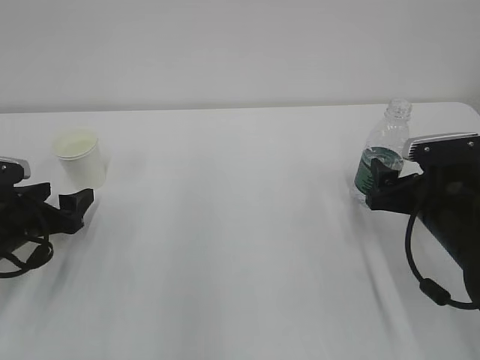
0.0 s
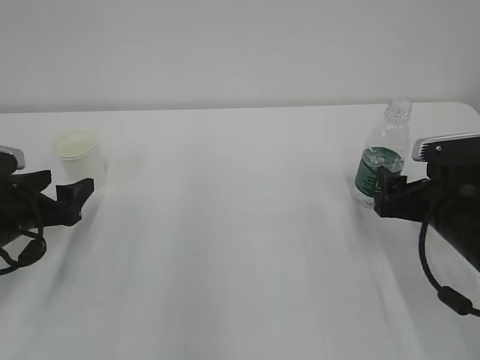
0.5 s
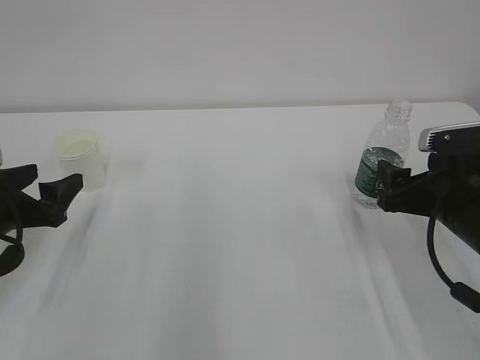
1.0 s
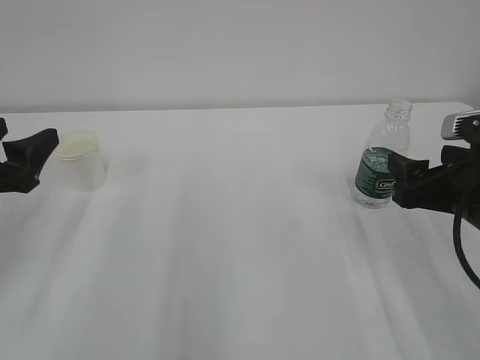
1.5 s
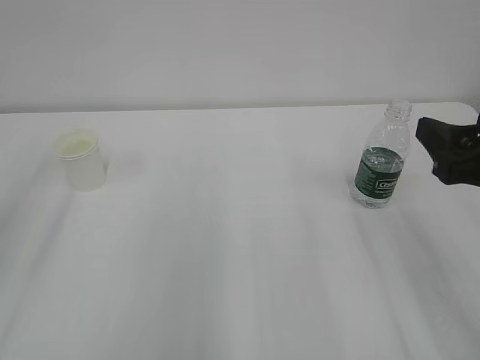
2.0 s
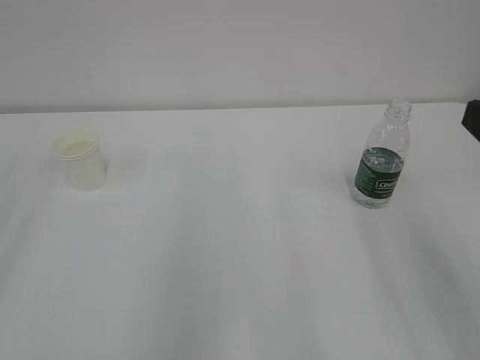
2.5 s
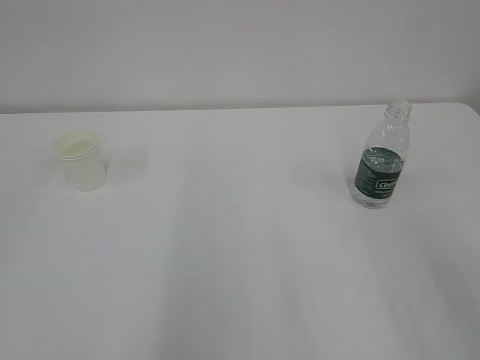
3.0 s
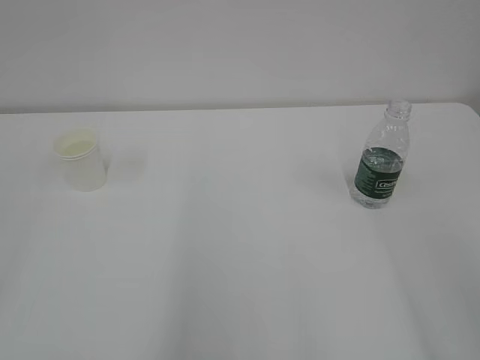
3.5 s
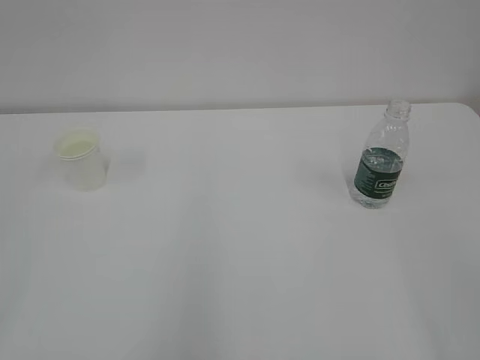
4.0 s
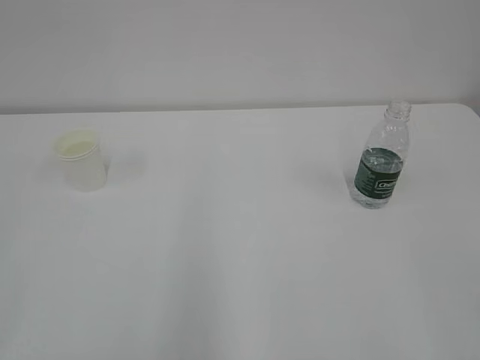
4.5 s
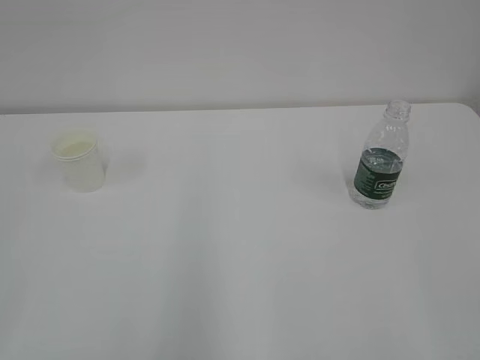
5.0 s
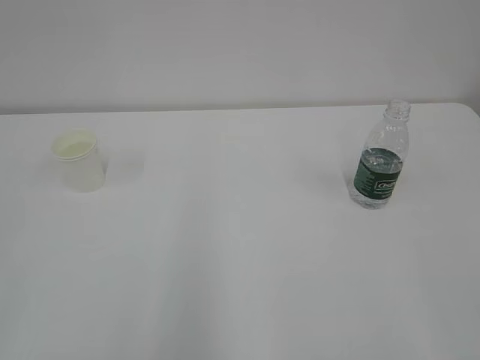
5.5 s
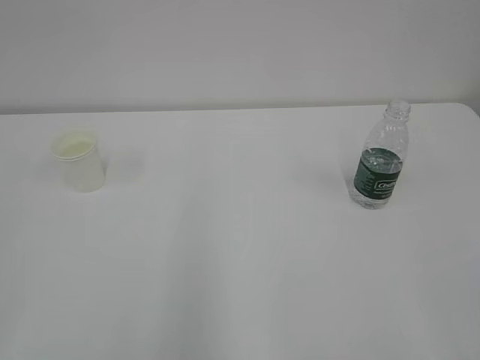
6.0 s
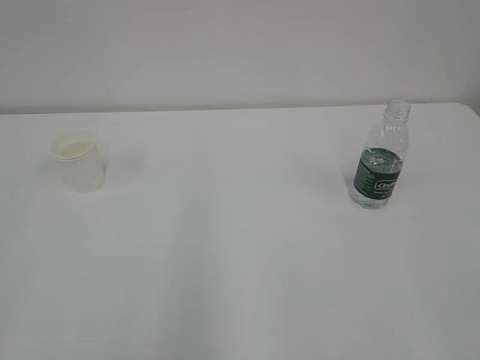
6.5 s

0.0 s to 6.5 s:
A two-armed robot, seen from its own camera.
0.0 to 2.0 s: Both grippers travel together upward and backward, some 20 cm.
2.0 to 4.5 s: The right gripper shifts roughly 20 cm backward.

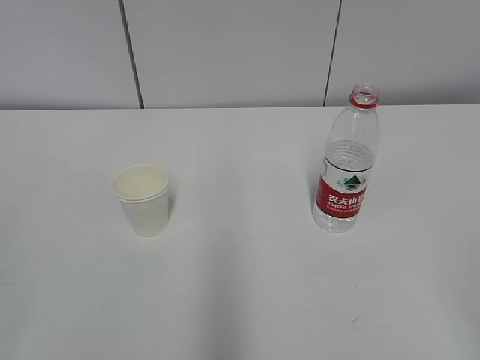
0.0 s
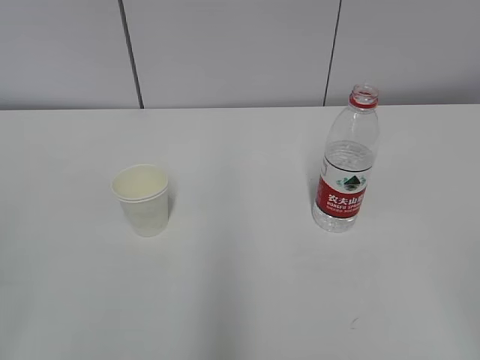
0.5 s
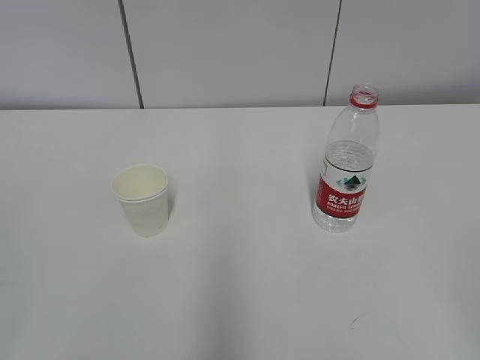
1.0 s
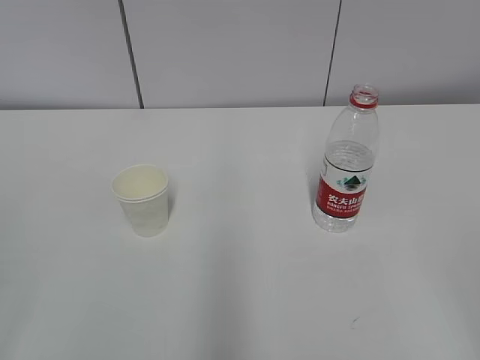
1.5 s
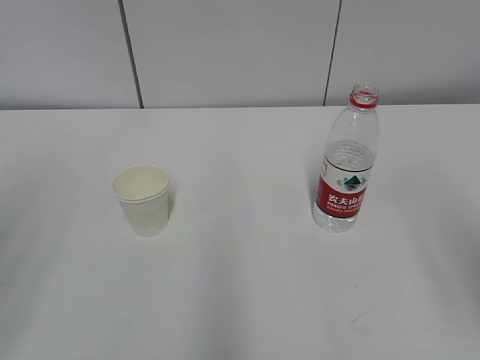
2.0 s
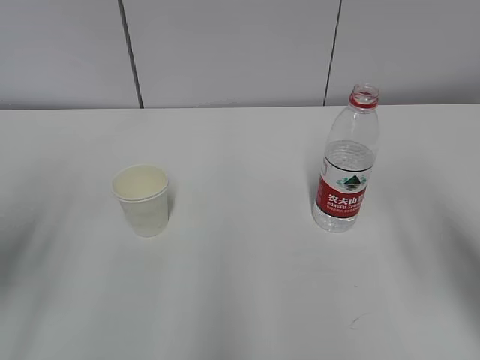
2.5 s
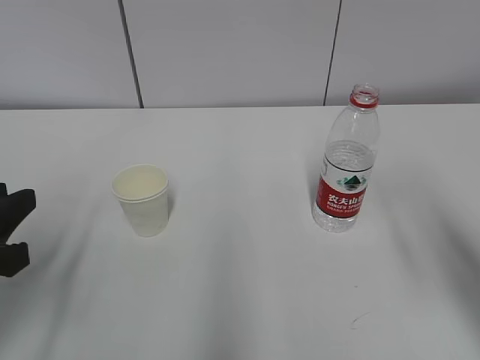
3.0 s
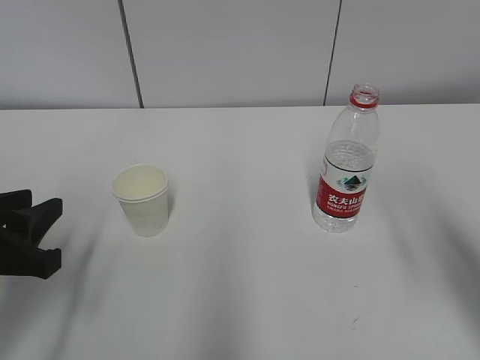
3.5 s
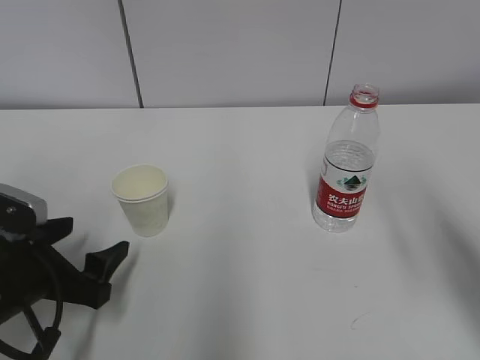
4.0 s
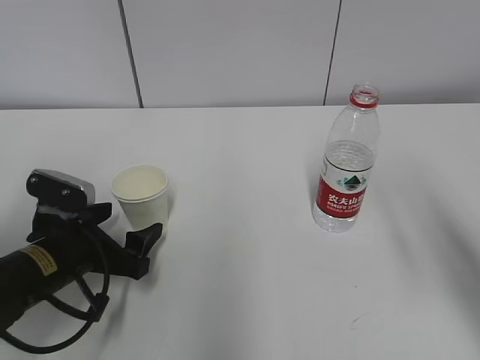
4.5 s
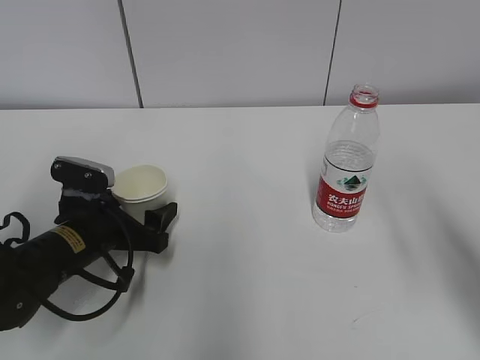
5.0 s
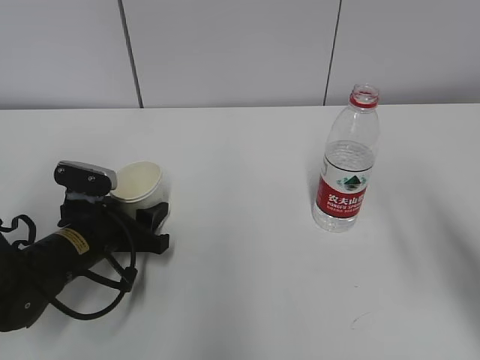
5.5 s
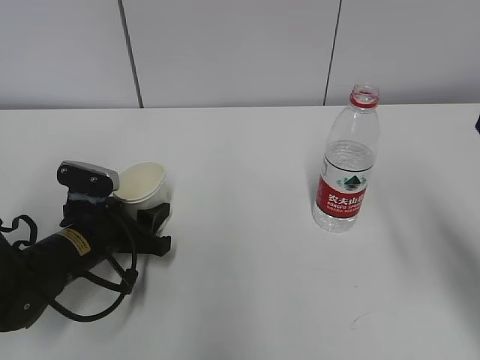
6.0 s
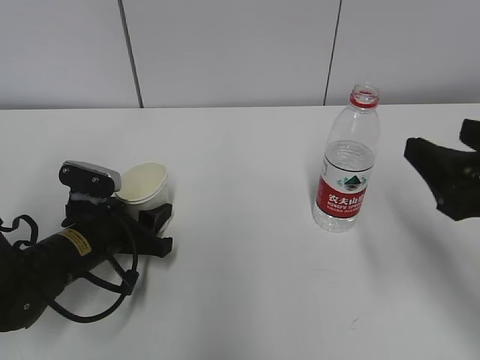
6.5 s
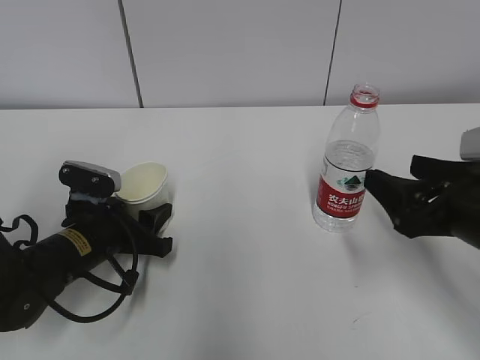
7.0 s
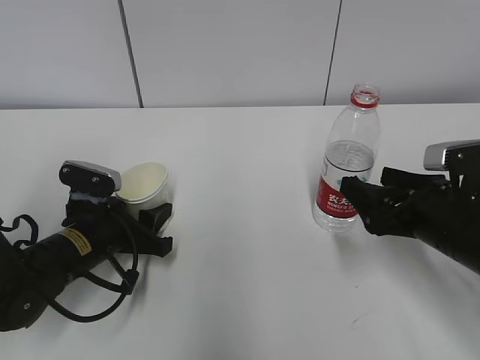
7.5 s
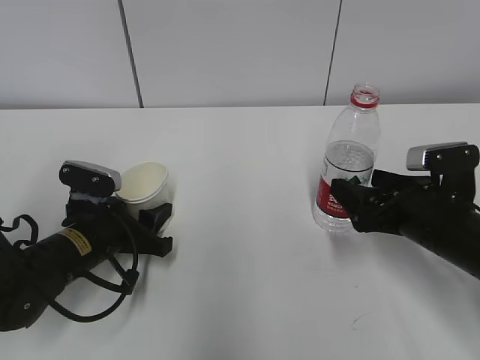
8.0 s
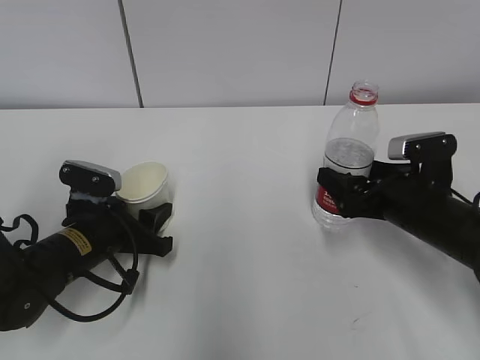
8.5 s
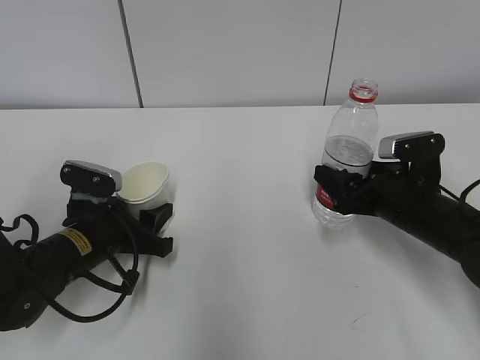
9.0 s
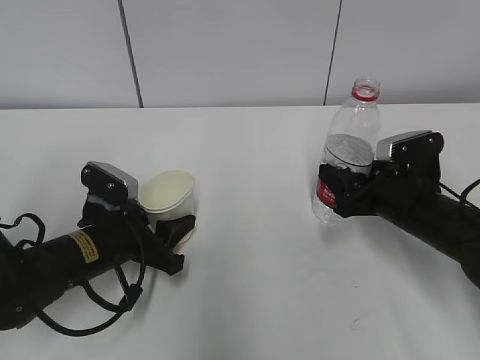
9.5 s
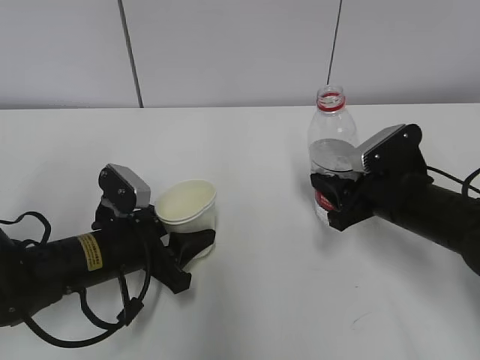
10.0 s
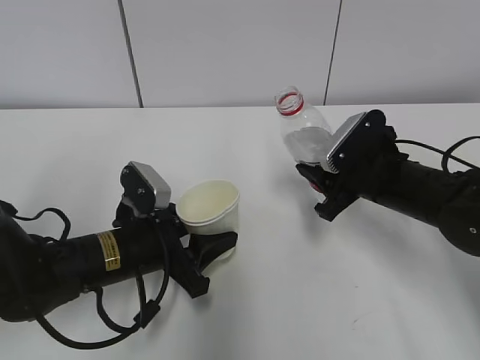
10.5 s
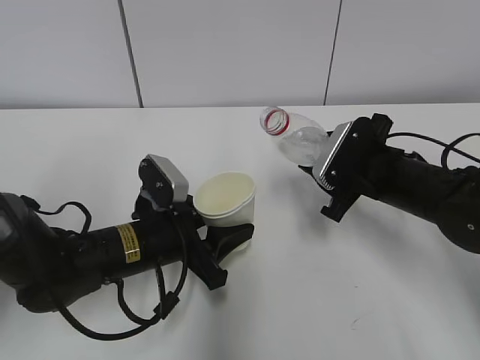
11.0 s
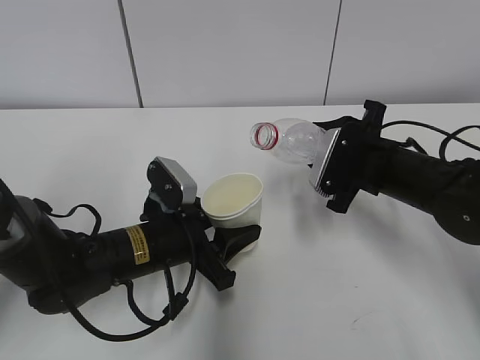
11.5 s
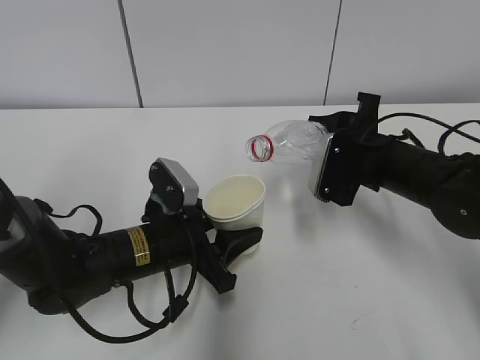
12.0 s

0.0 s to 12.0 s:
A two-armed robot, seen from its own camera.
Step, 0.0 to 7.5 s: Grab the paper cup with the left hand.
Step, 8.5 to 10.5 s: Lift the paper cup with the left hand.
2.0 to 4.0 s: The left gripper goes approximately 25 cm downward and forward, and opens up. The right gripper travels forward by some 10 cm.
4.0 to 6.0 s: The left gripper shifts roughly 10 cm forward, and closes.
6.0 to 8.0 s: The right gripper travels downward and forward by approximately 20 cm.
8.0 to 10.0 s: The right gripper closes its fingers.
10.0 to 12.0 s: The left gripper goes approximately 5 cm to the right. The right gripper moves approximately 5 cm.

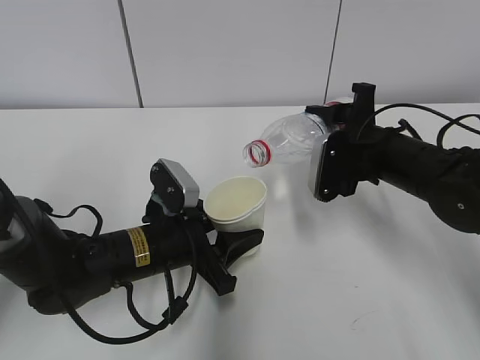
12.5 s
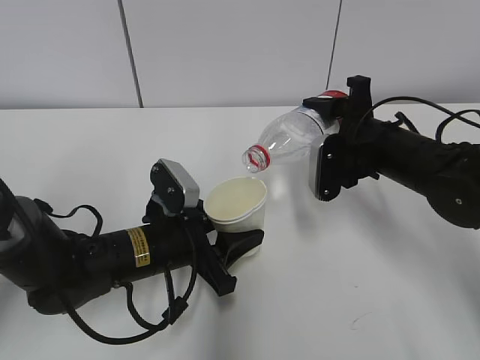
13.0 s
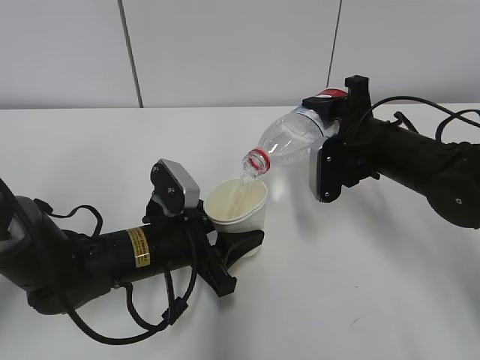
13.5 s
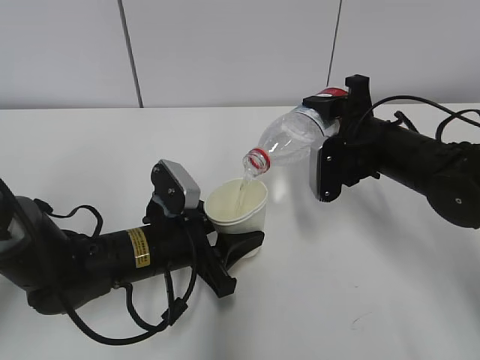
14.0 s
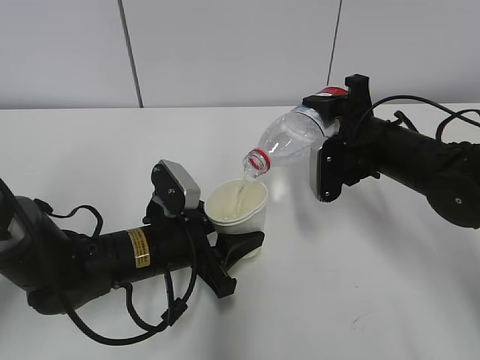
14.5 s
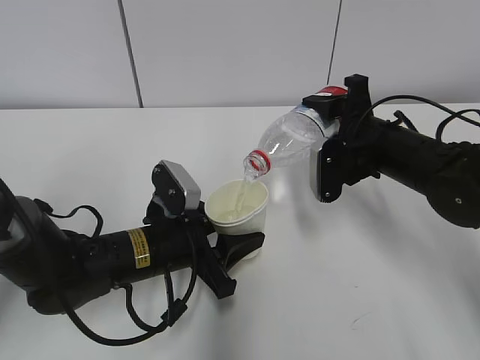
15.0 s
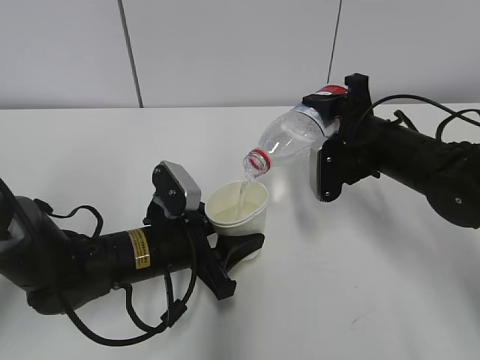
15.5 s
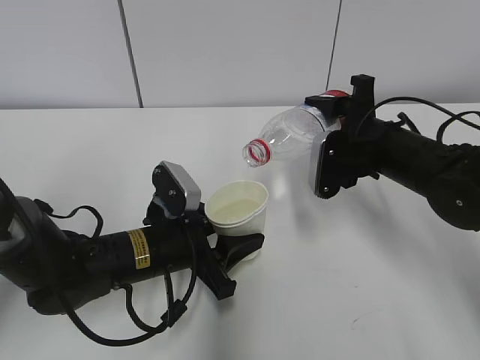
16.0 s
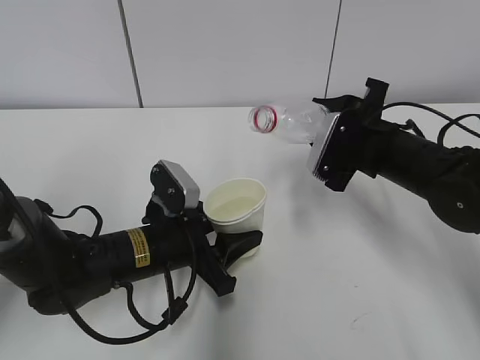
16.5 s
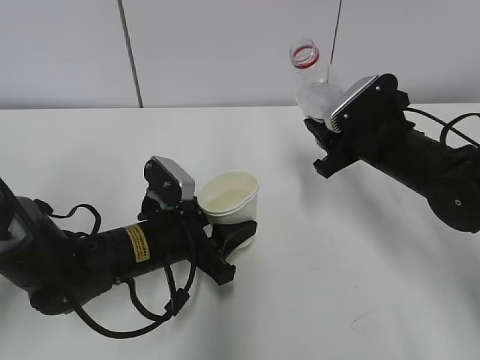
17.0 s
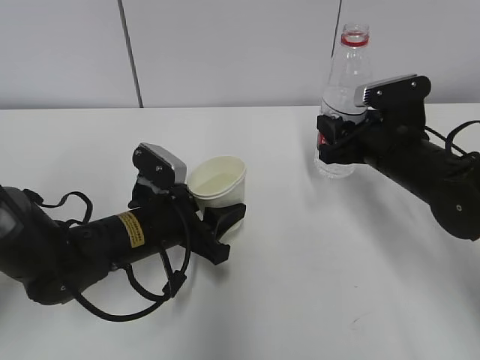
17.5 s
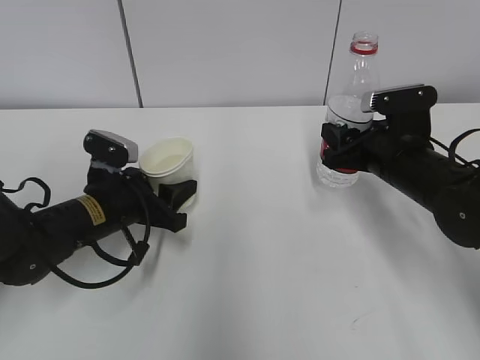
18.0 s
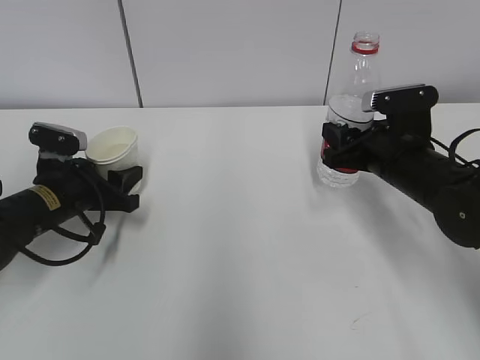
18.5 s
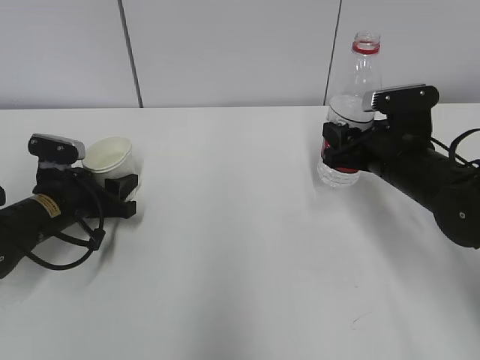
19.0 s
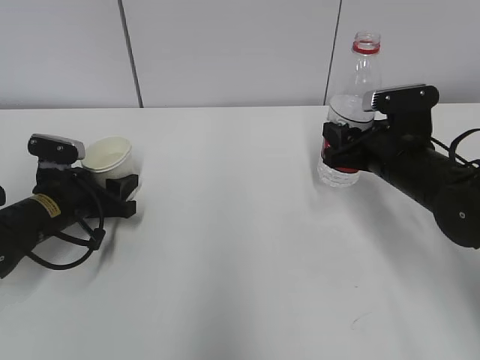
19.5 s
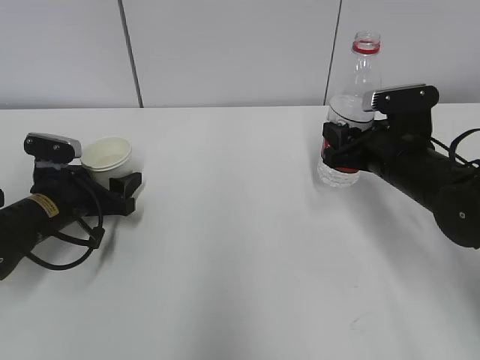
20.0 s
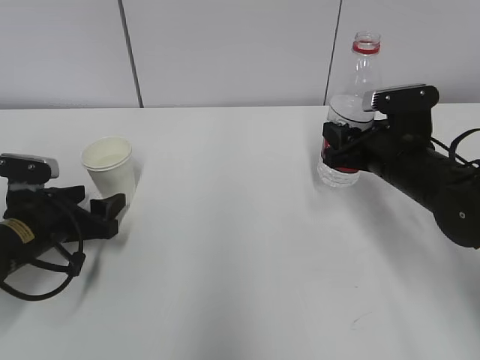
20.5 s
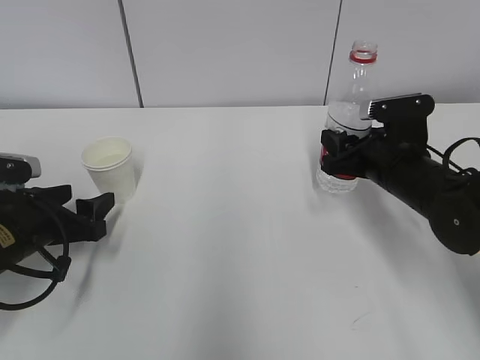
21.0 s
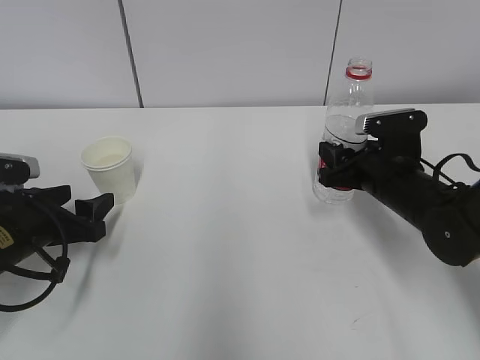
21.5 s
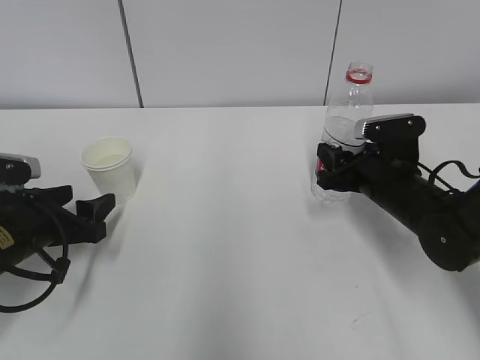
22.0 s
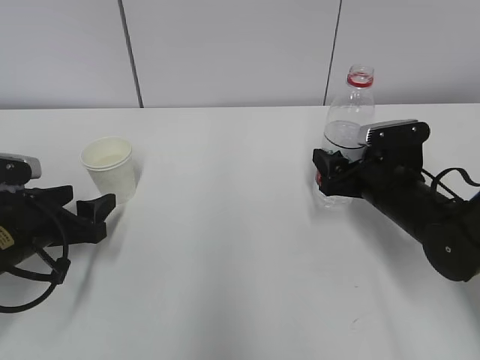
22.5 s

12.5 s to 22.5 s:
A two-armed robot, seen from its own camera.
Step, 15.0 to 16.0 s: Place the paper cup with the left hand.
Step, 16.5 to 18.5 s: Place the water bottle with the right hand.
12.5 to 14.5 s: The grippers make only small movements.
16.5 to 18.5 s: The left gripper is displaced to the left and forward by approximately 15 cm.
18.5 to 20.5 s: The left gripper opens up.
20.5 to 22.5 s: The right gripper opens up.
